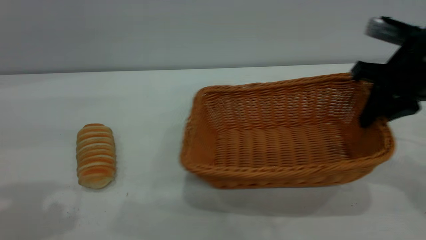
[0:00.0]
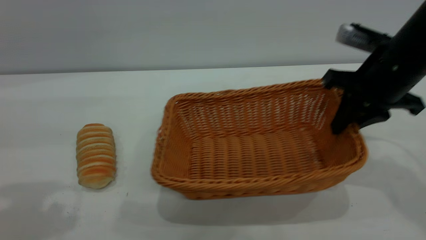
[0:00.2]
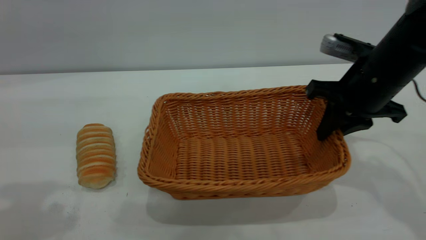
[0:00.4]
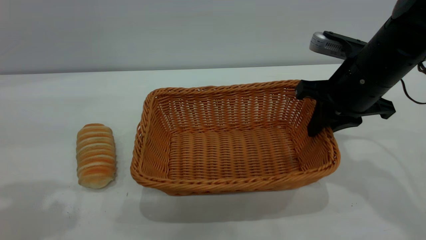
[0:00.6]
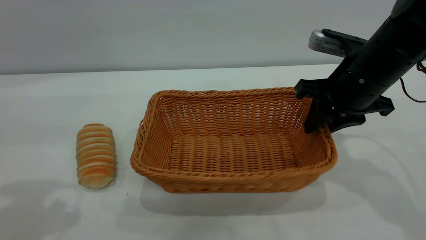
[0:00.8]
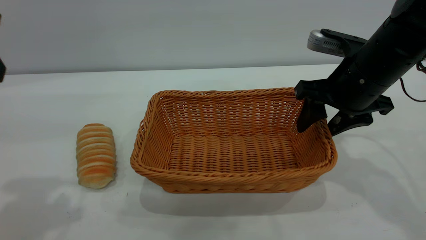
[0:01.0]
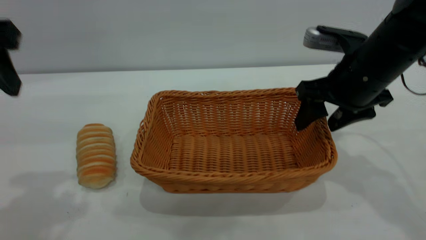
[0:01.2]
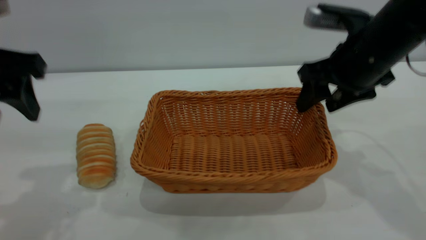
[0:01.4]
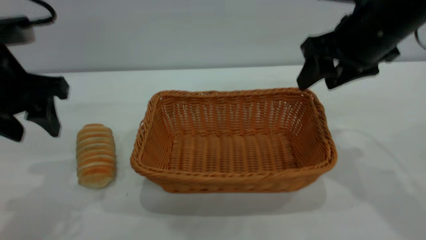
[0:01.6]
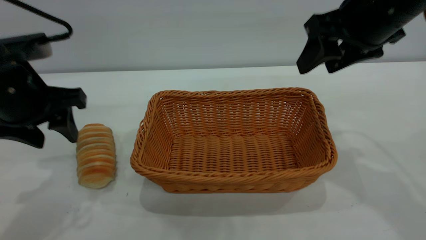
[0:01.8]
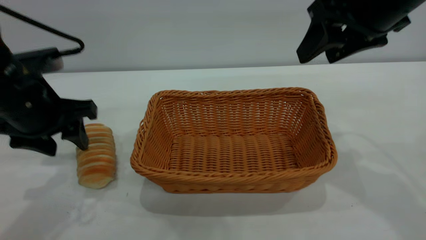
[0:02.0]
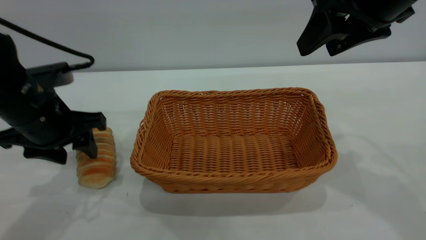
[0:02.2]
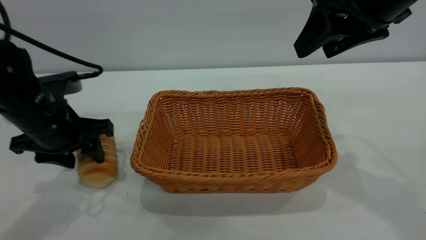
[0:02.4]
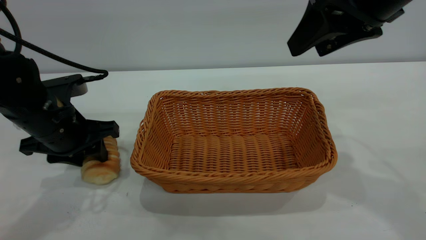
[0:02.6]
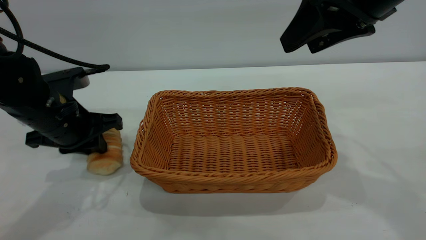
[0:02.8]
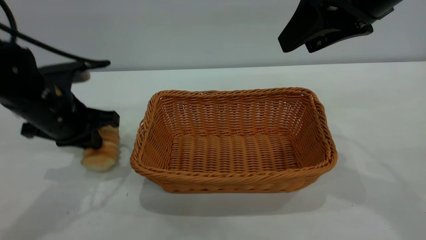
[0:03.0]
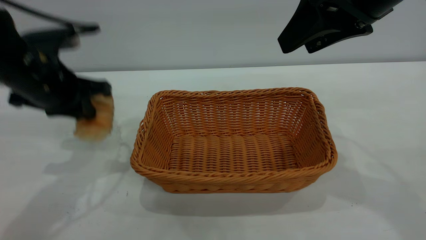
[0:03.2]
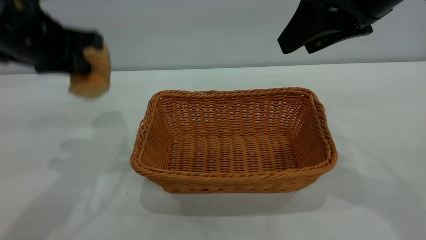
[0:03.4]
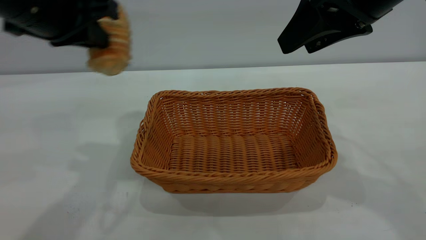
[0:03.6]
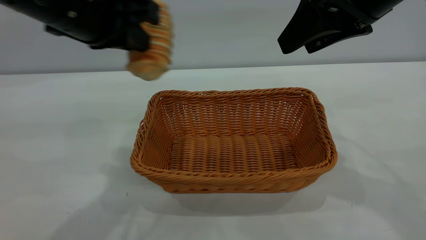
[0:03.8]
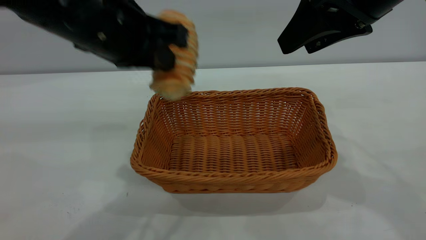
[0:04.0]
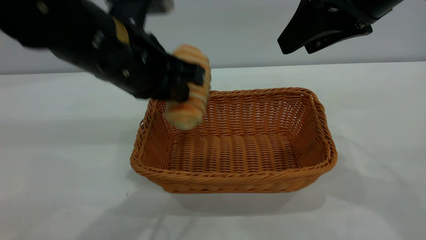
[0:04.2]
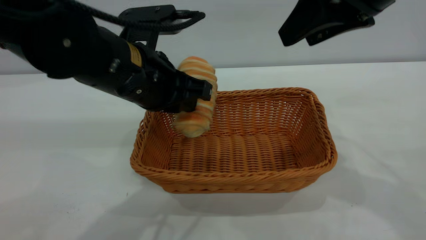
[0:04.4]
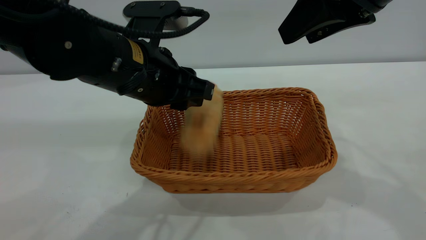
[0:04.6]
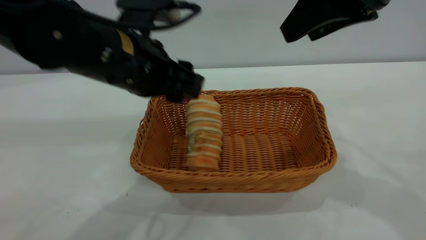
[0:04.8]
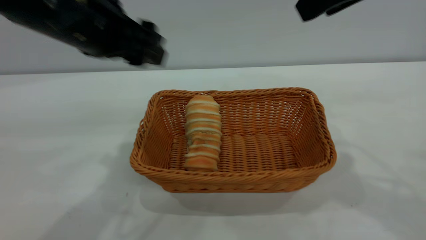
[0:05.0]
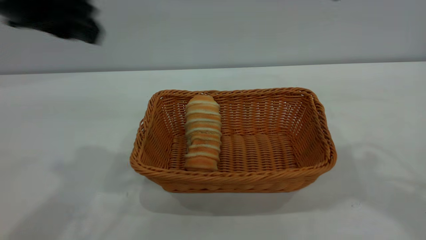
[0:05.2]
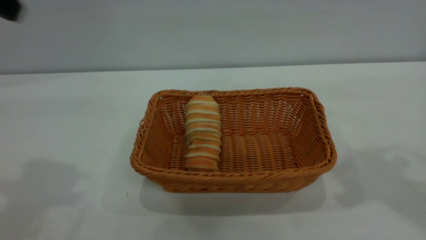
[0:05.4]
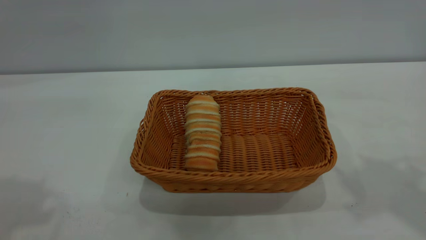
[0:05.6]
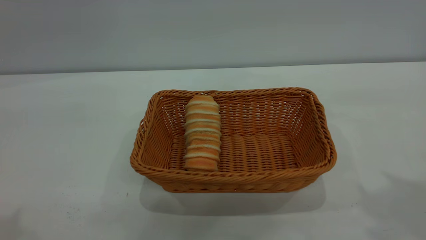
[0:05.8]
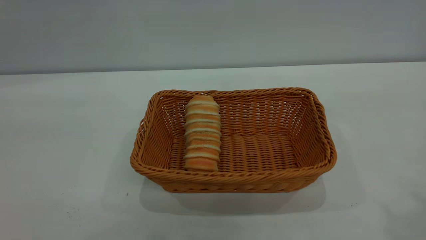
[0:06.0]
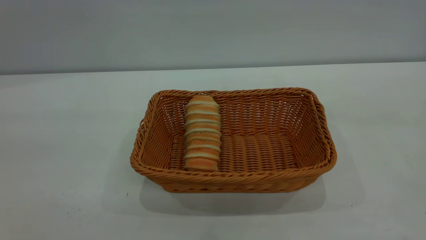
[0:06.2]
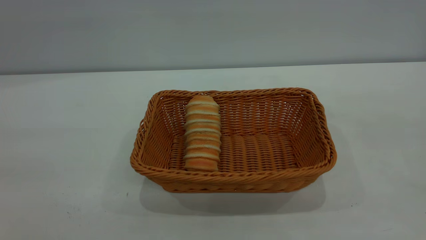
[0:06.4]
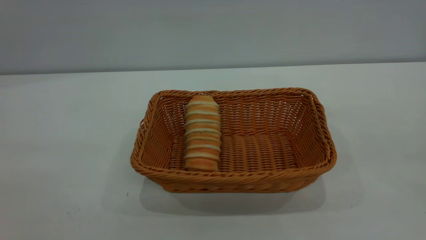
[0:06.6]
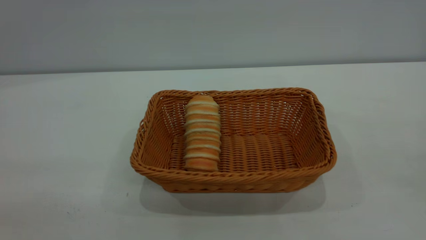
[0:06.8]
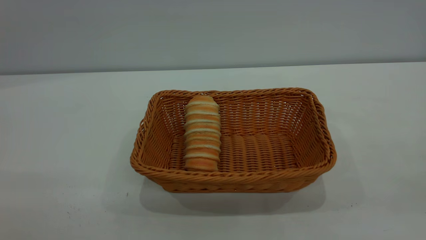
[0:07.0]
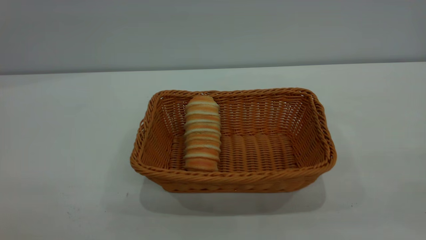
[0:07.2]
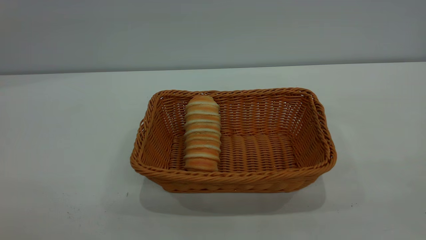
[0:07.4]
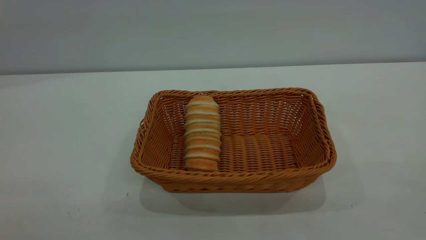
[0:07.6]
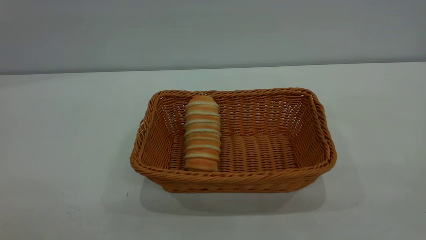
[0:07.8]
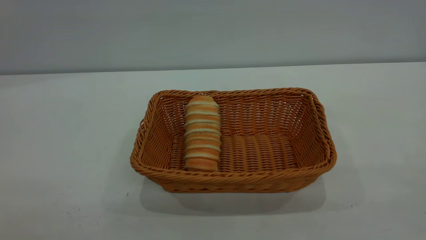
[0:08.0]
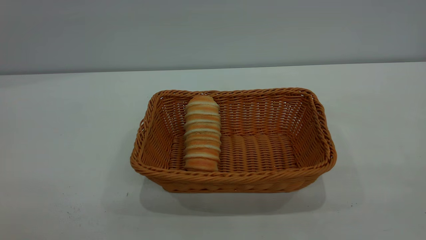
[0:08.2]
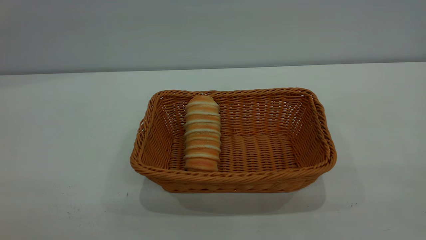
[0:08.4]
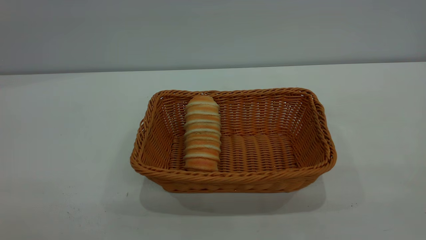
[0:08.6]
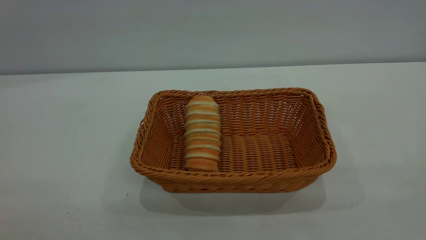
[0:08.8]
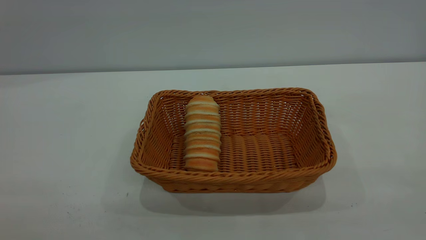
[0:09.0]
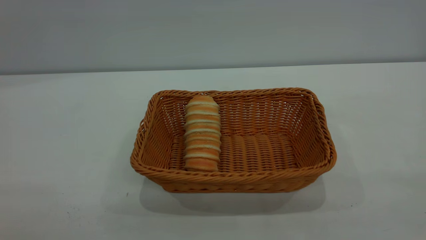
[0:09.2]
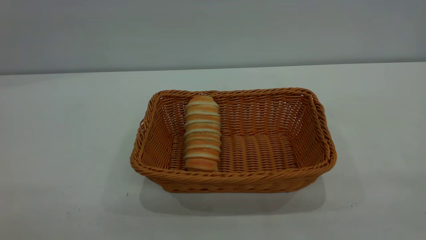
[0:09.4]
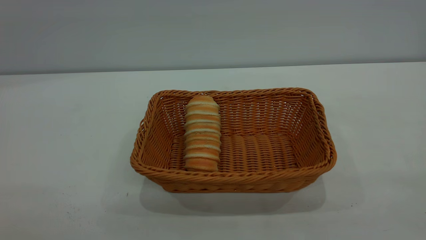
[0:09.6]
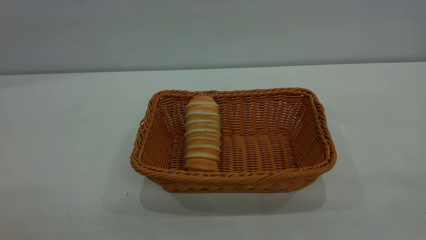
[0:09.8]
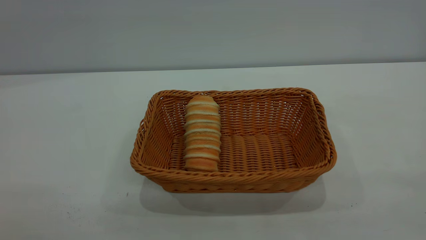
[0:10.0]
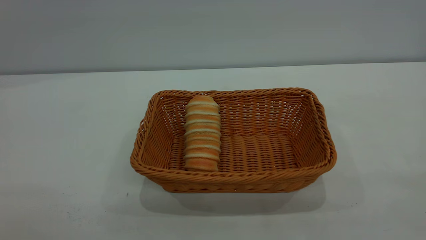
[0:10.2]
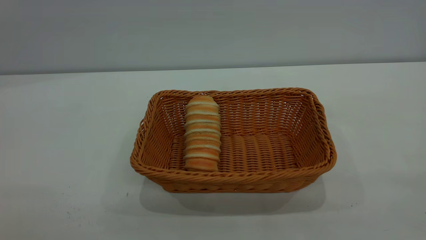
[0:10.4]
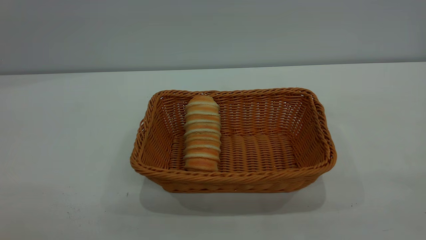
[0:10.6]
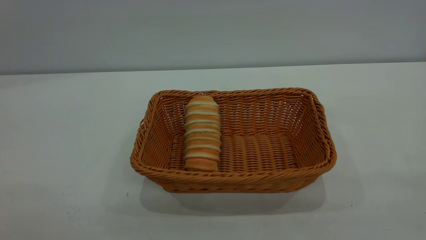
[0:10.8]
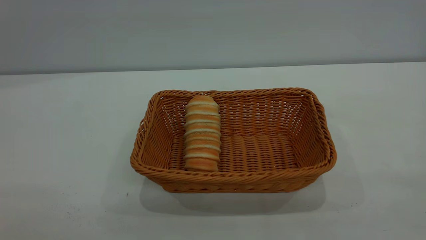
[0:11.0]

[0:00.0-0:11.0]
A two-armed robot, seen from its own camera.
Task of the whole recording: One hand grasps the yellow basket and places it in the middle of the table, while the other hand picks up the long bread and puts it into the yellow basket.
Step, 0:03.4 to 0:05.0: place the bread into the basket.
0:00.0 to 0:01.6: The left gripper goes approximately 10 cm downward and forward, while the right gripper shifts roughly 10 cm to the left and upward, and opens up.
0:01.6 to 0:03.2: The right gripper is displaced upward by roughly 5 cm; the left gripper goes downward and returns, some 10 cm each way, and closes up.
0:03.2 to 0:04.8: The left gripper travels to the right by approximately 10 cm, and opens.
0:04.8 to 0:06.2: The left gripper heads backward, upward and to the left, covering roughly 35 cm, while the right gripper moves backward, upward and to the right, approximately 25 cm.
0:09.4 to 0:11.0: The two grippers keep their place.

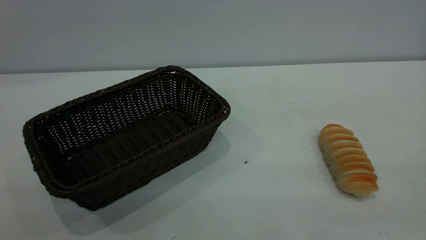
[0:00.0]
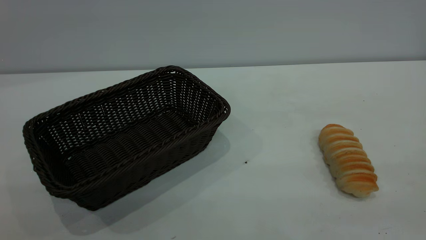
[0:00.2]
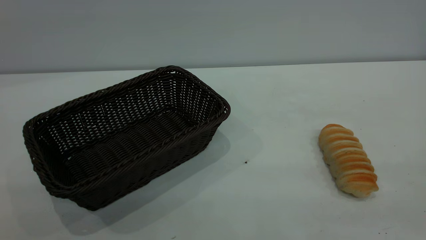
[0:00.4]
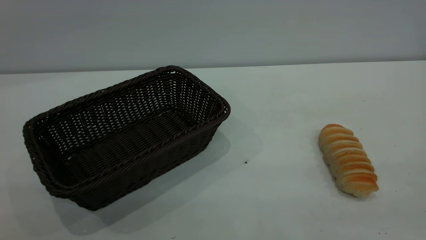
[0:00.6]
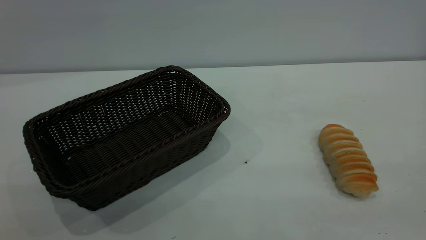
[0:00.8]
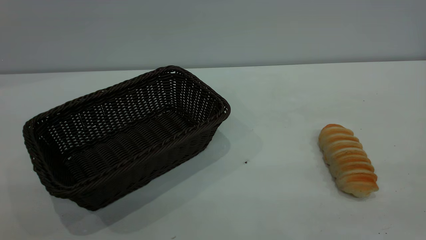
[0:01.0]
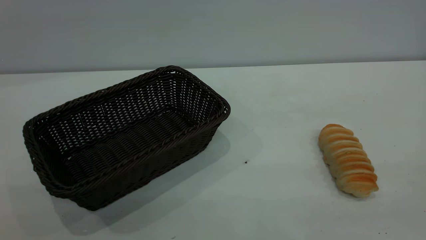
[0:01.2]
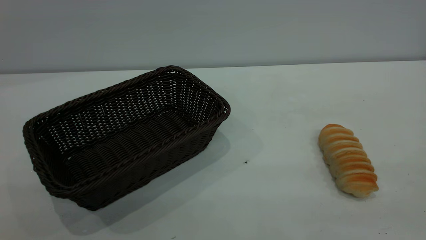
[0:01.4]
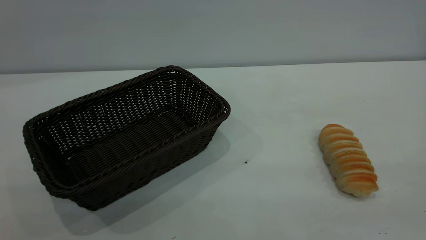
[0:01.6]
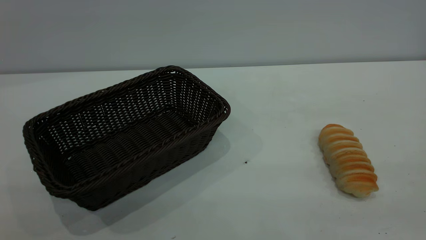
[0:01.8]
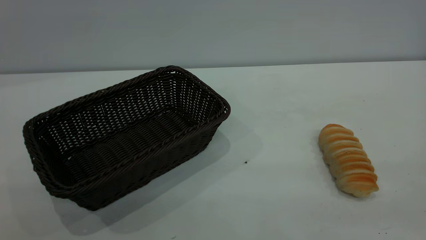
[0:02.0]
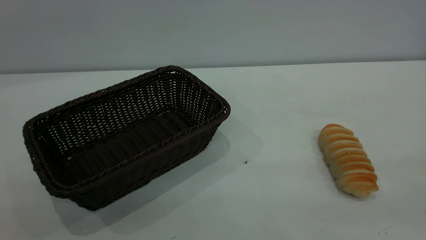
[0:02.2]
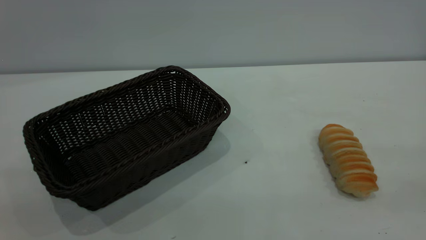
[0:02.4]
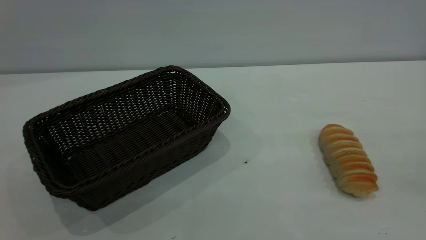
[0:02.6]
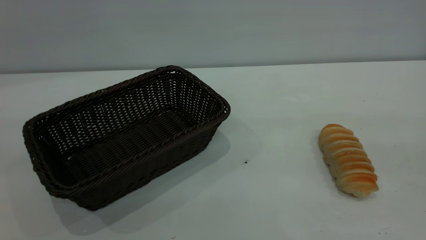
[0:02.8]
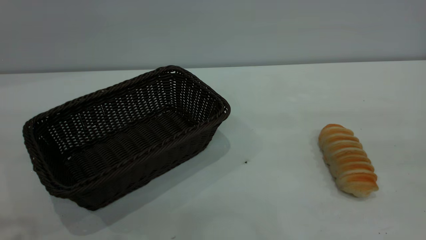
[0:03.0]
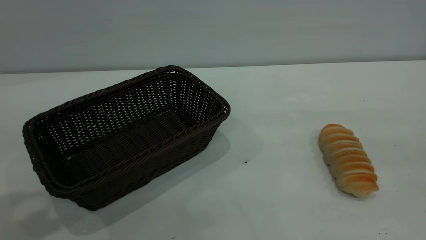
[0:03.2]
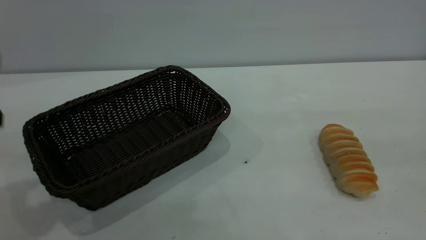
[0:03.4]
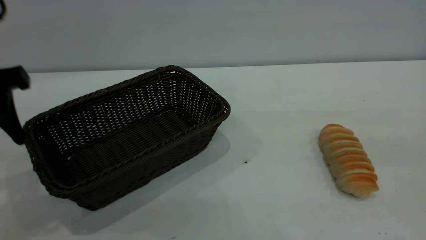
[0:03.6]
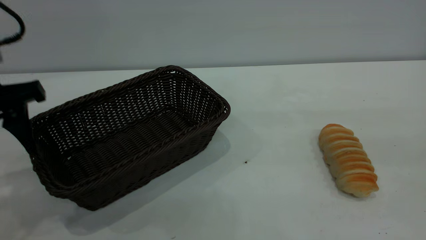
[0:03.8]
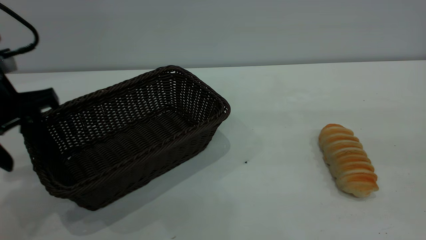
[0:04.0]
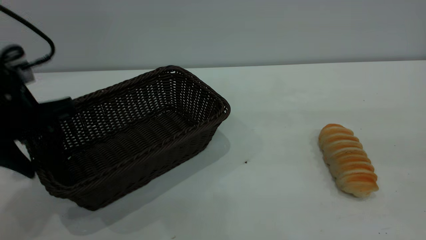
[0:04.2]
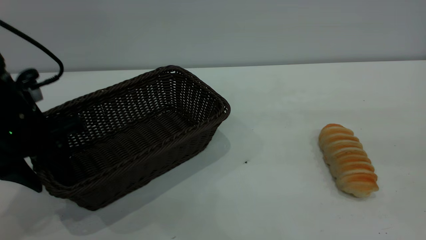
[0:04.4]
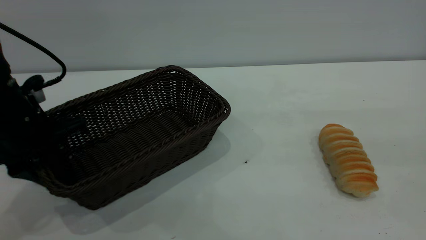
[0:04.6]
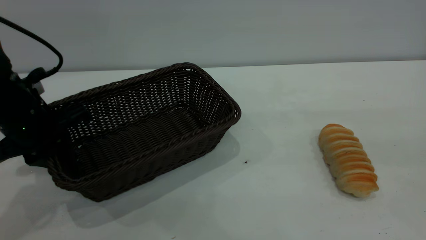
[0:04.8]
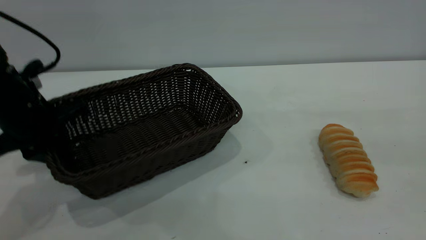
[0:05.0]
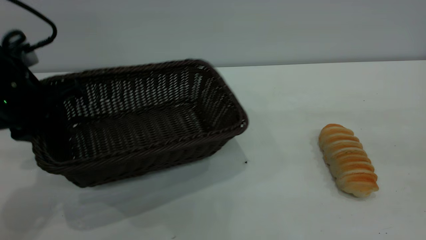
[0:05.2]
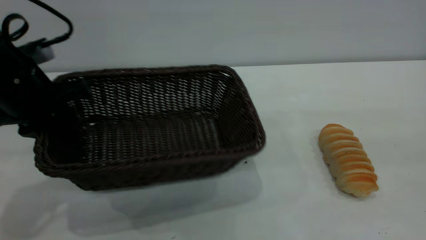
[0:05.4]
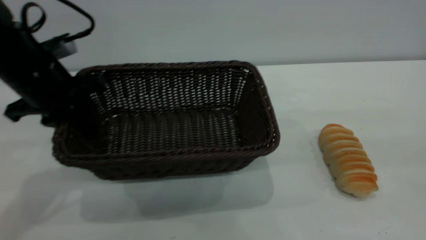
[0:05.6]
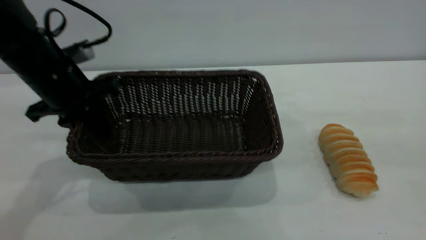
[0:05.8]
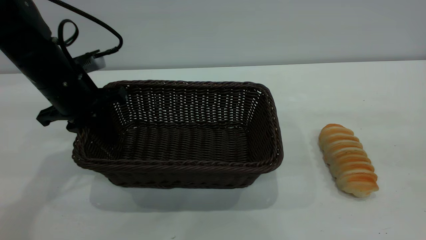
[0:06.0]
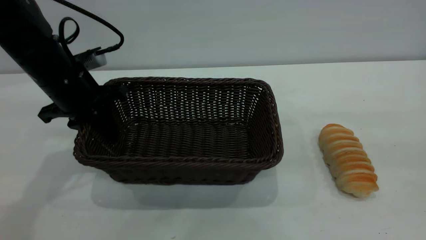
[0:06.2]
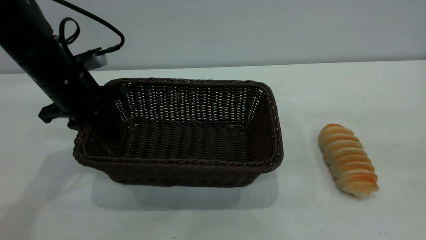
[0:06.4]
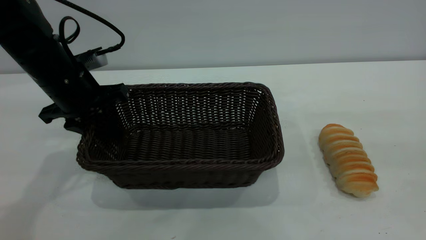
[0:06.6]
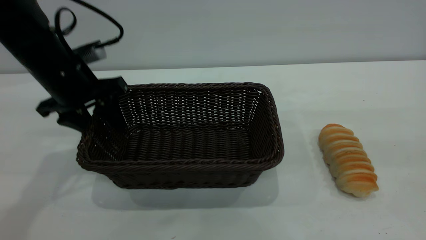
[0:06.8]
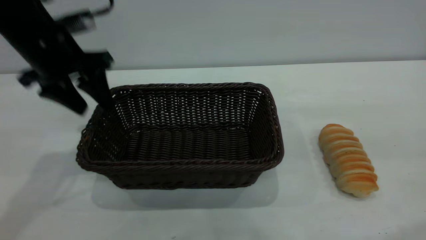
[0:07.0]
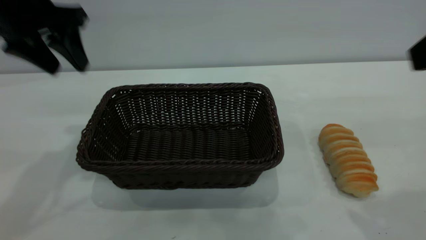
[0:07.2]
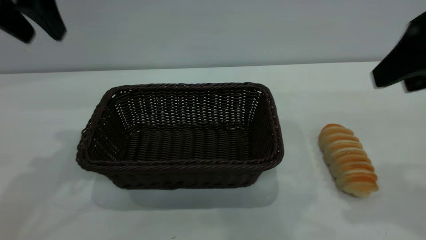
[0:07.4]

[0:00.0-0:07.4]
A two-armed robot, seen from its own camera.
Task of the whole recording: One hand grasps the black basket and places it in the middle of the table, while the other hand picks up the long bread and puts it into the black basket.
Step, 0:00.0 to 0:07.0: Move the basket to the center of view.
0:00.0 to 0:01.4: Both grippers stay put.
0:03.0 to 0:04.4: The left gripper moves downward and forward, approximately 25 cm.
0:04.4 to 0:06.0: The left gripper shifts about 10 cm forward, and closes up.
0:06.0 to 0:07.4: The right gripper shifts some 15 cm forward and downward; the left gripper is displaced upward by some 20 cm, and opens up.
